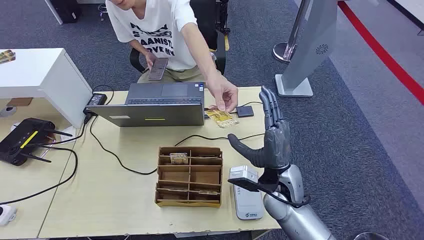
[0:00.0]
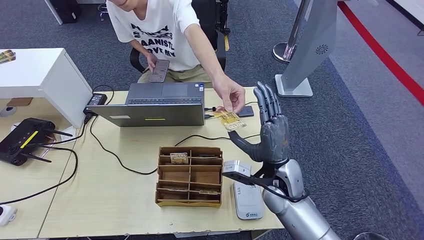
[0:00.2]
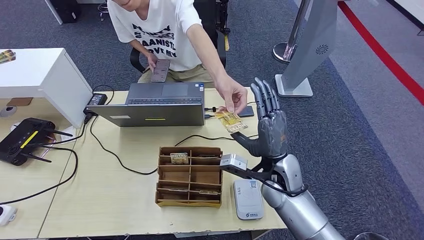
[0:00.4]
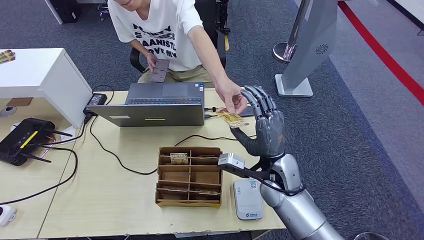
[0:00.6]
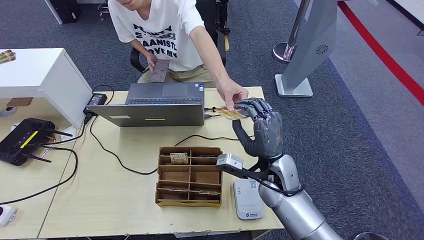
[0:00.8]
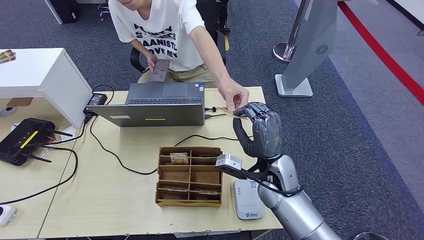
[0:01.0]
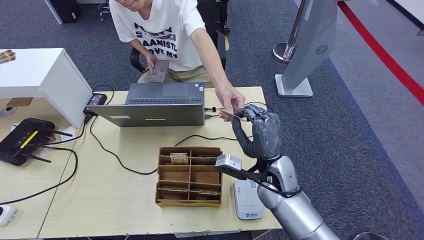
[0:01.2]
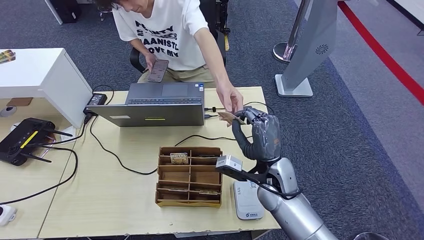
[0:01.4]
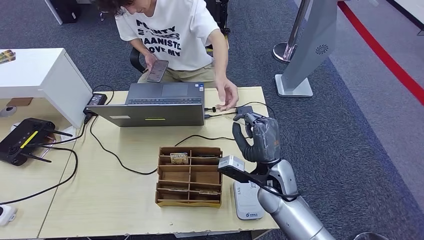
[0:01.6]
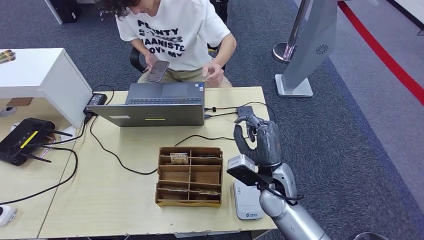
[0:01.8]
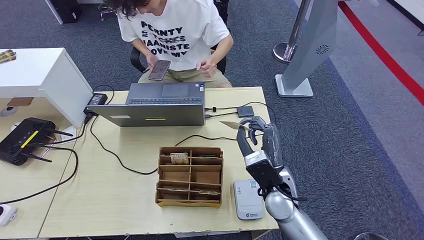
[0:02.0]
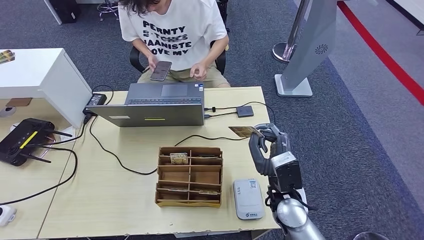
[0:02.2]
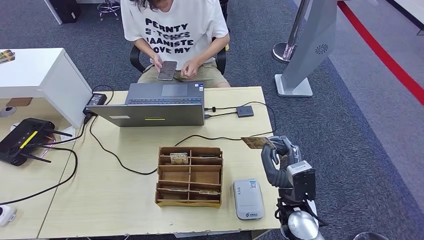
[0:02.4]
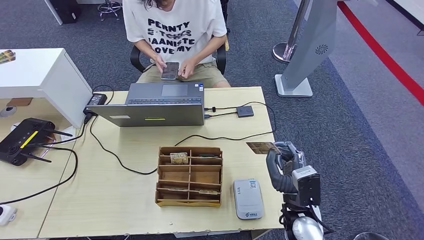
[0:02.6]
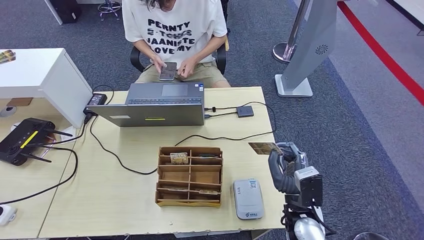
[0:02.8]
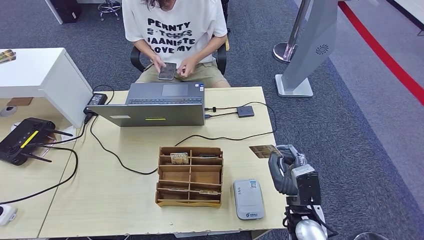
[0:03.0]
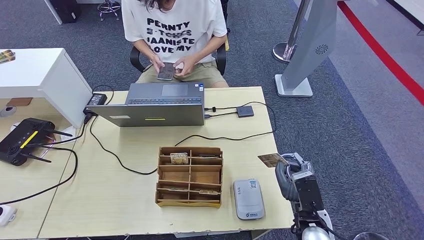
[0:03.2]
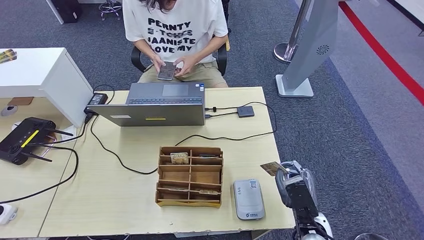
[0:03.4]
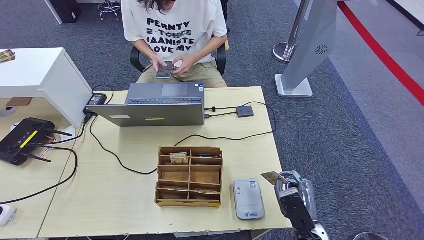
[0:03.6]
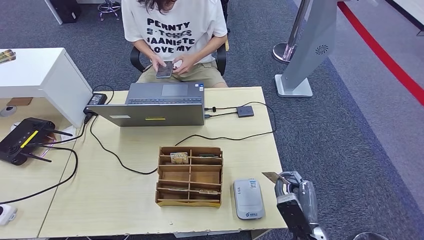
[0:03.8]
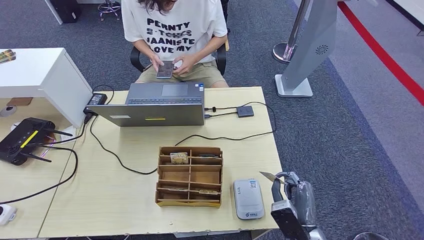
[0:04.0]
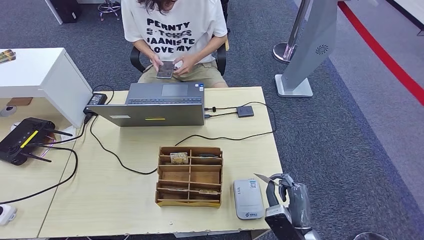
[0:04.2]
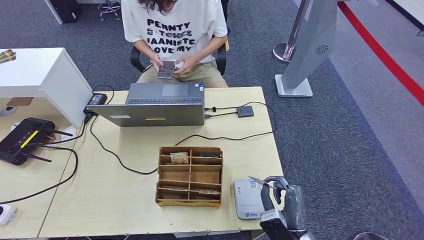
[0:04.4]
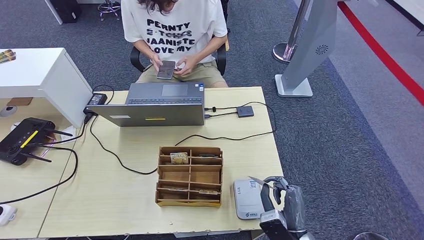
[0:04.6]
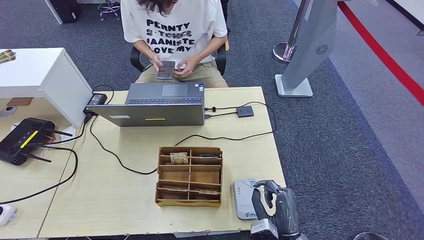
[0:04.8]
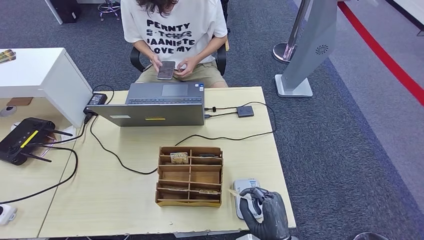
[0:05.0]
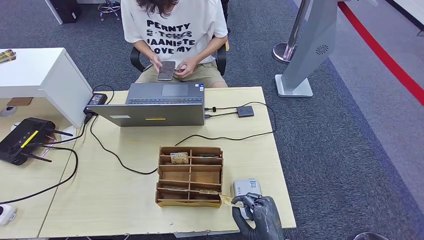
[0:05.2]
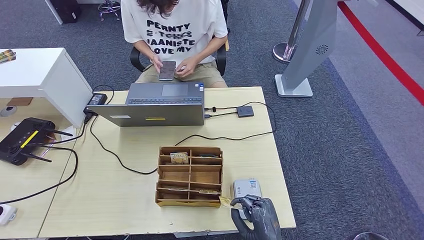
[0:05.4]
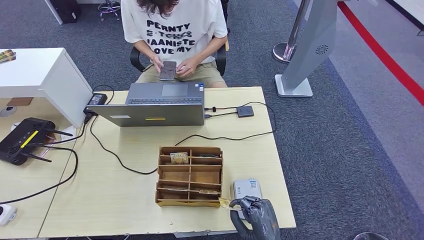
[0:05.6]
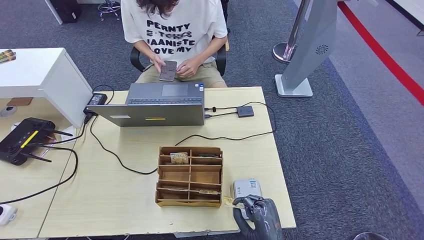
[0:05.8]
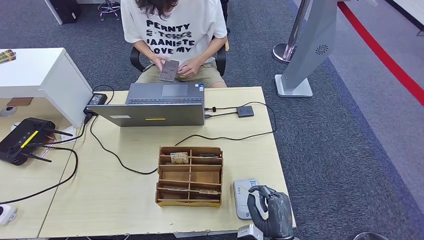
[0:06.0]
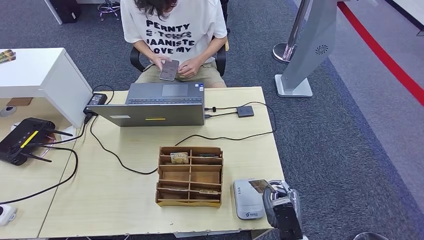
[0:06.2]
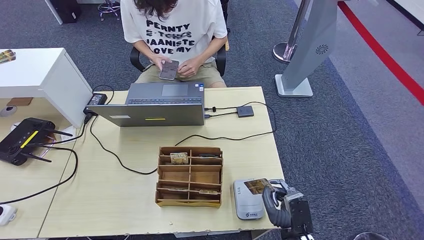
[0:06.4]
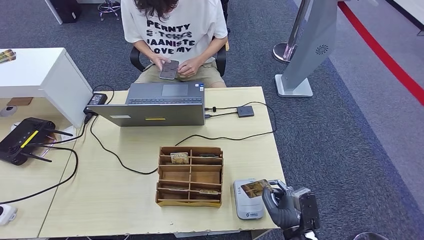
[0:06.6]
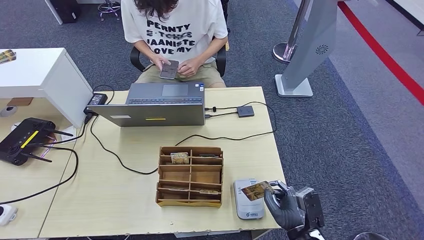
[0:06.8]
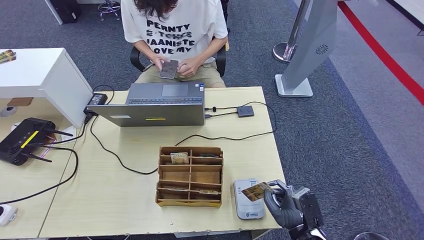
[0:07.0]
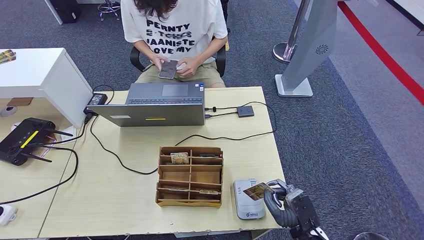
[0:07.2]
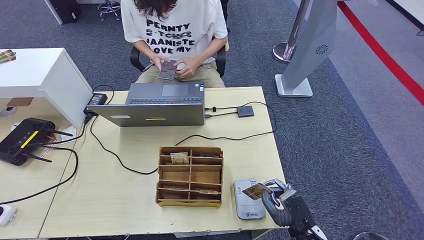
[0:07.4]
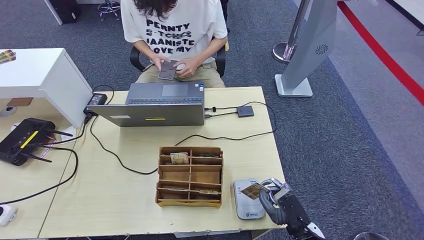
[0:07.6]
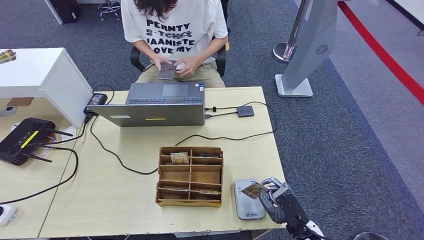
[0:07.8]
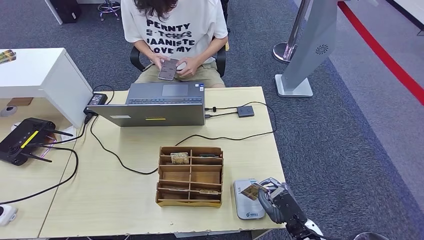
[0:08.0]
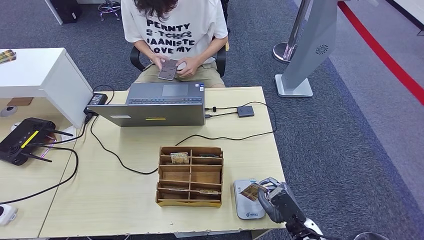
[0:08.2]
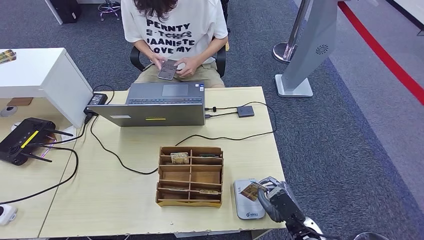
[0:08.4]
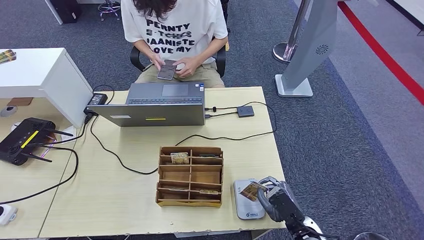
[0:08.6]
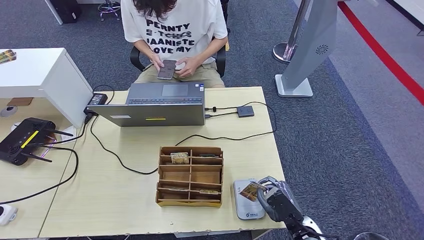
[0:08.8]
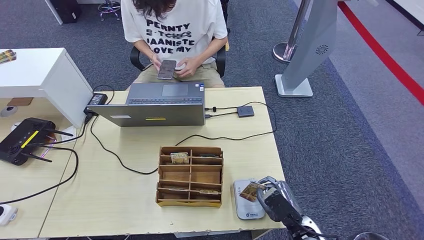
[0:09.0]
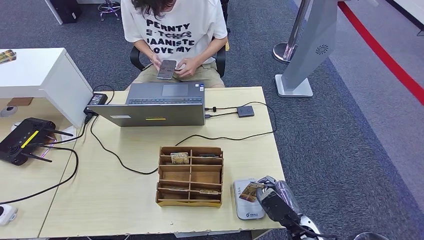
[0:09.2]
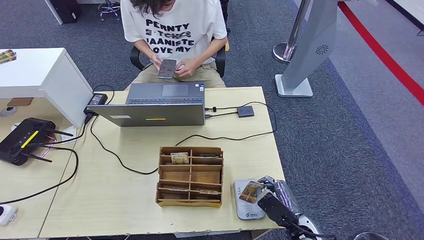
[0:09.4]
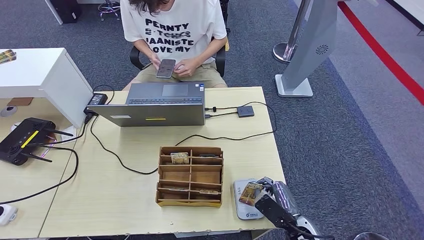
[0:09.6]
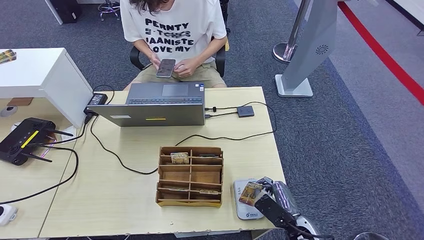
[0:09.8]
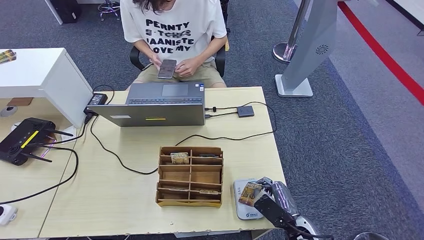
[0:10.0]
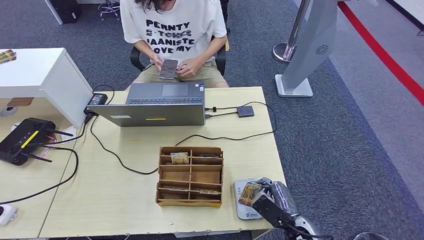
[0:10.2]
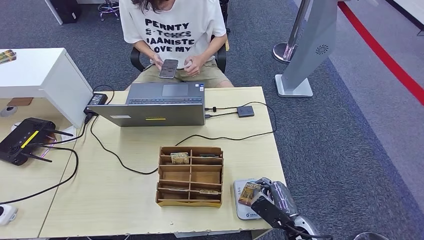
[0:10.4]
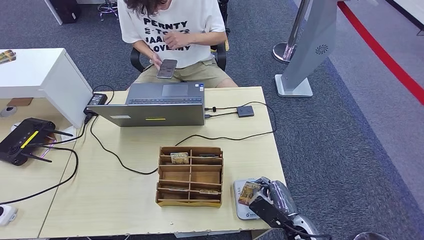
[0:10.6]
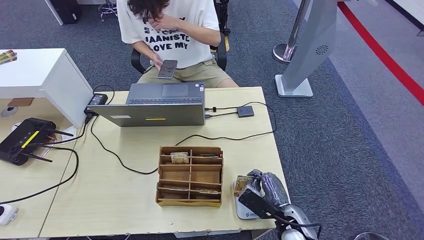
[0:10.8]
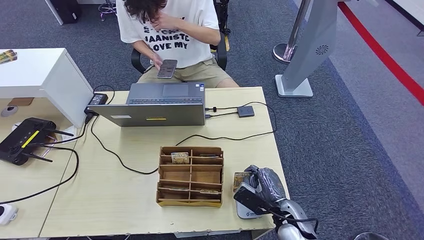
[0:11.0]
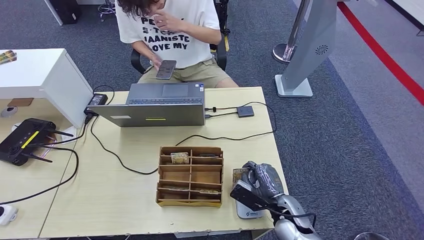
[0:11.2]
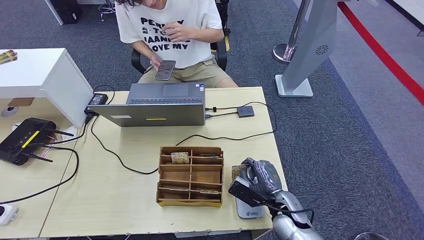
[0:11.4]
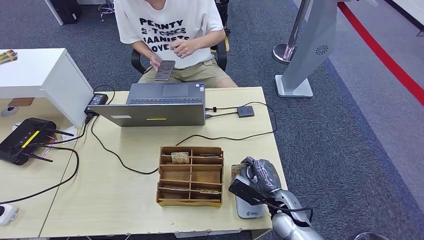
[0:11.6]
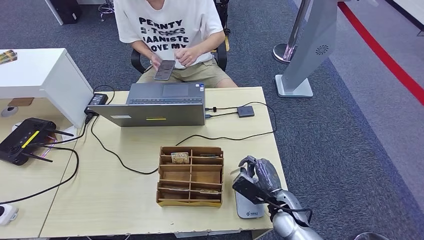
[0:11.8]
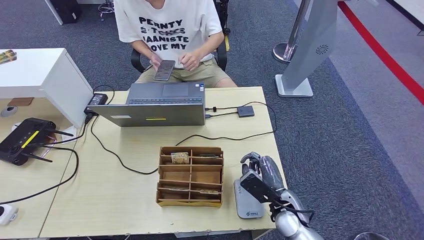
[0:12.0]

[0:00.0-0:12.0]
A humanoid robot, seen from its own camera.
Step, 0.0 to 3.4 s: Take the ID card from the person's hand.
Step, 3.6 to 11.2 s: Place the ID card on the card reader.
1.6 to 3.0 s: The right hand travels backward and to the right by about 10 cm.
3.0 to 4.4 s: The right hand moves backward, about 5 cm.
6.0 to 7.6 s: The right hand heads to the right, covering approximately 5 cm.
7.6 to 9.0 s: The hands move only a little.
9.0 to 10.4 s: The hands stay close to where they were, moving slightly.
10.4 to 12.0 s: The left hand is displaced to the left by some 10 cm. The right hand moves forward, roughly 5 cm.

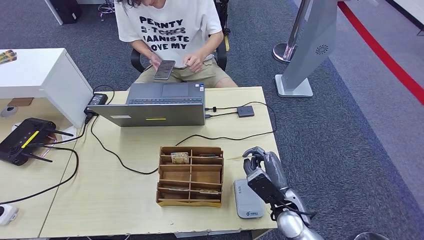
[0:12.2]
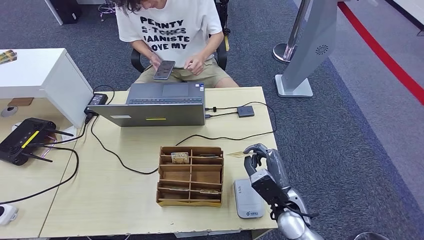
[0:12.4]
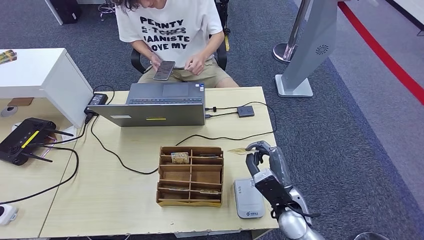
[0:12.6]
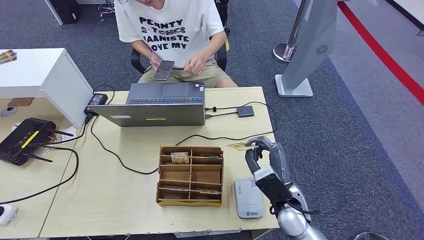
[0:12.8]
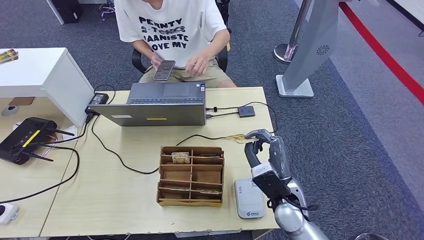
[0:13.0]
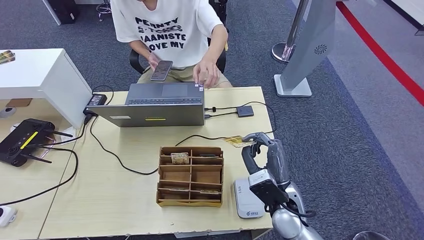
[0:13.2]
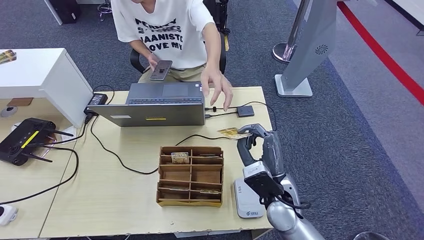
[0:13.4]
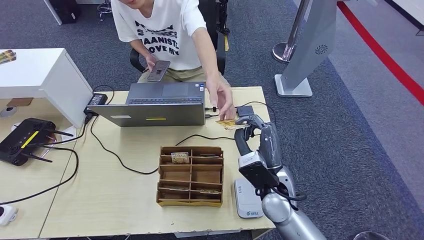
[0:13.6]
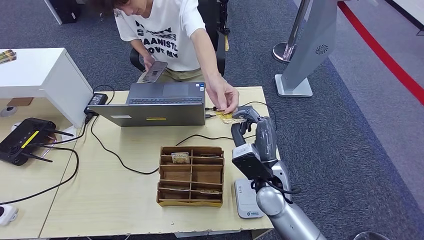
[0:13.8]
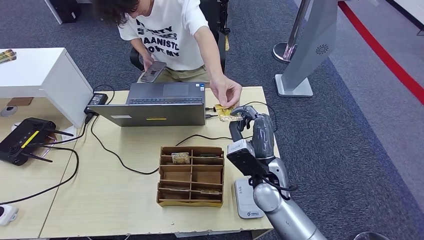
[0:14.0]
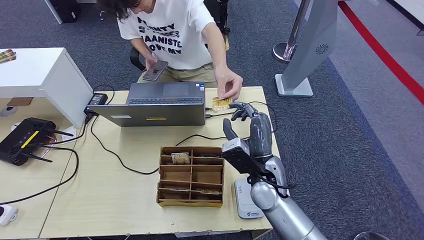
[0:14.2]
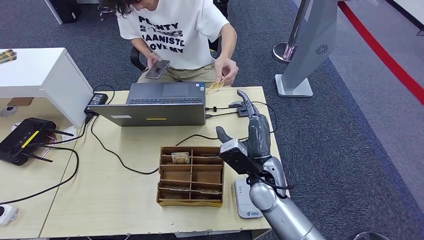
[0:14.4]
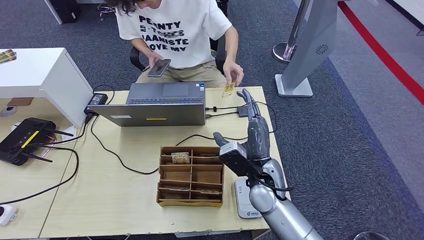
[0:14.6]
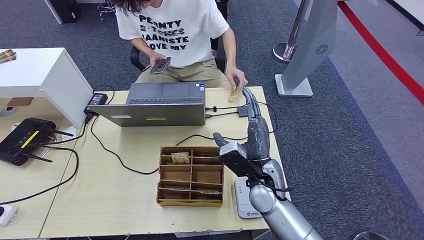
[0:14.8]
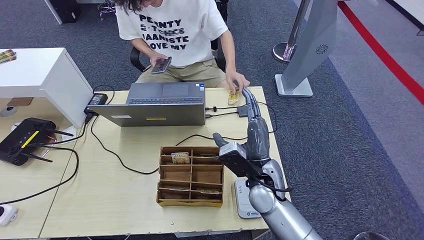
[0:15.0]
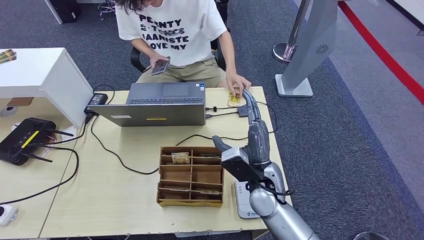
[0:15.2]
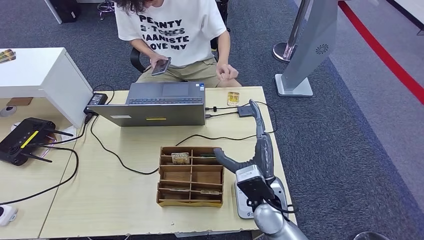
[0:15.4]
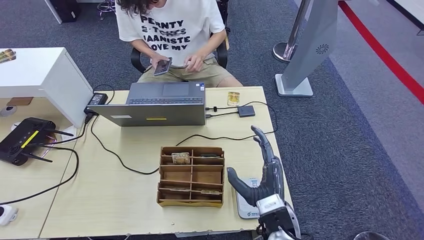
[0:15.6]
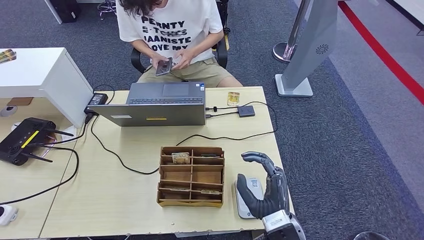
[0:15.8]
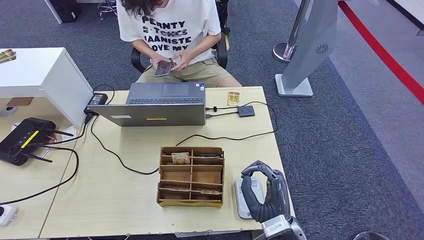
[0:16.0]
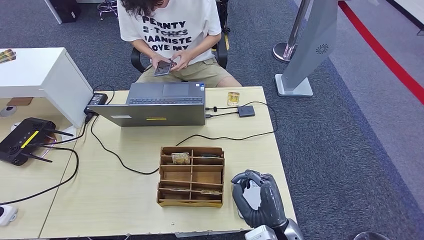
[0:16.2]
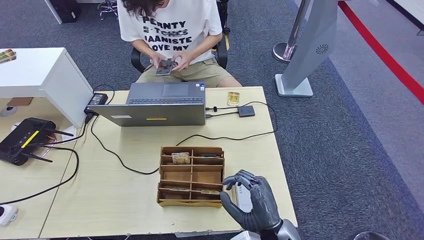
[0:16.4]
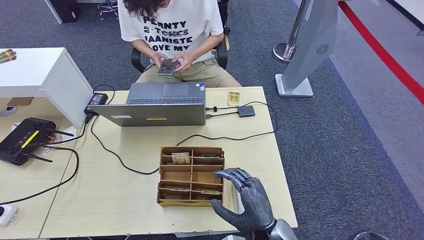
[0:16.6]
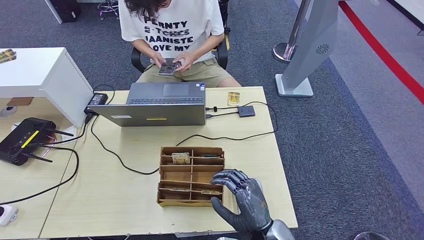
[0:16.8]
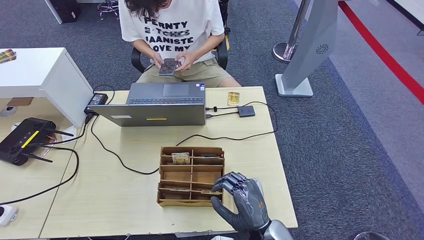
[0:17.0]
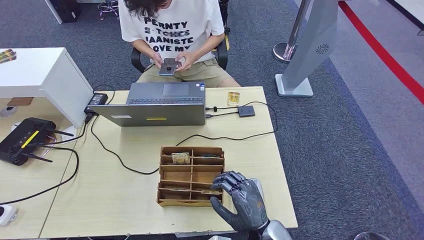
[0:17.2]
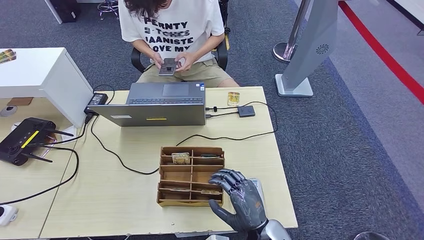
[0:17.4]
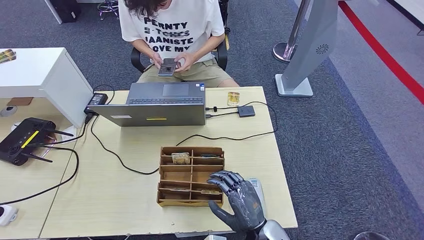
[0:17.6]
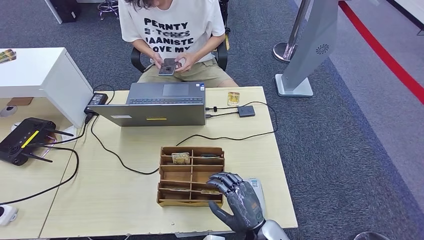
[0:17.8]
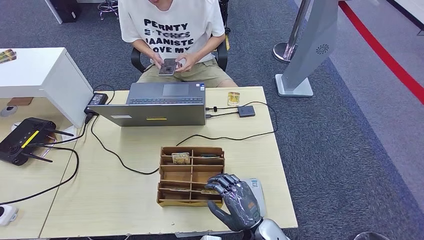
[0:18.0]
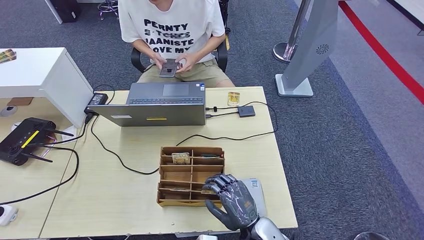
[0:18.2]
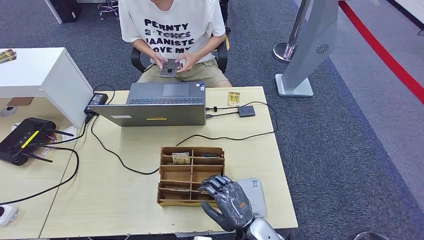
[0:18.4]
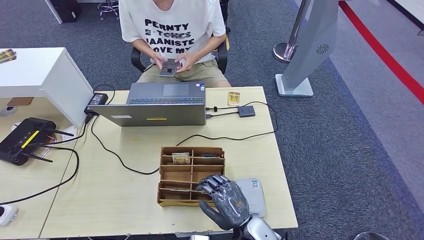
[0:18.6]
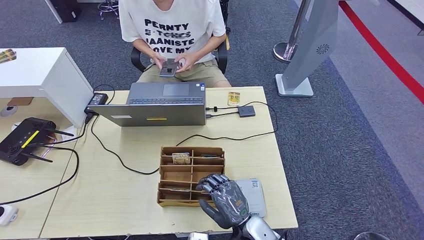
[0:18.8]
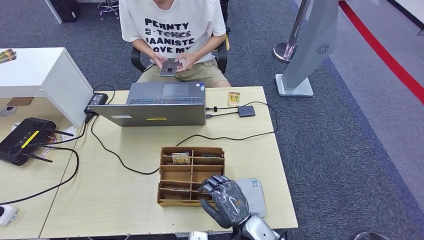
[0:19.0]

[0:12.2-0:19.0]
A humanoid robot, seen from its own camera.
12.2 to 13.6 s: The right hand travels upward by about 10 cm. The left hand goes roughly 10 cm to the right.
13.6 to 15.0 s: The hands stay close to where they were, moving slightly.
15.0 to 16.2 s: The right hand shifts about 15 cm backward.
16.2 to 17.6 s: The right hand shifts by approximately 5 cm.
17.6 to 19.0 s: The hands move only a little.
